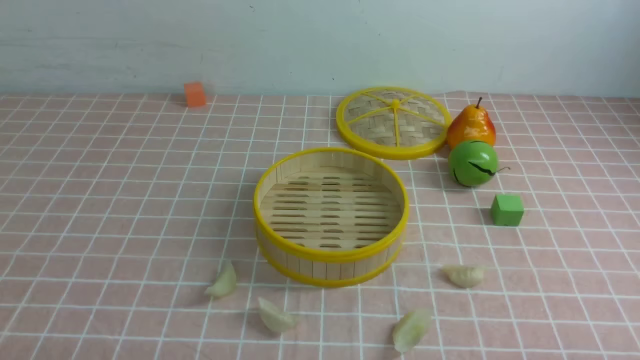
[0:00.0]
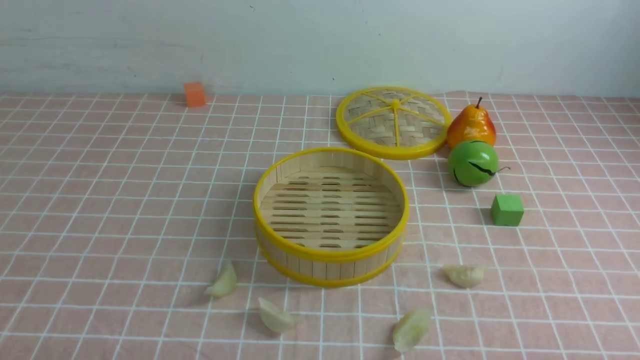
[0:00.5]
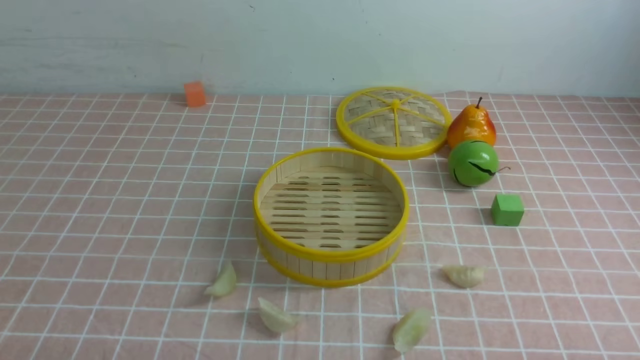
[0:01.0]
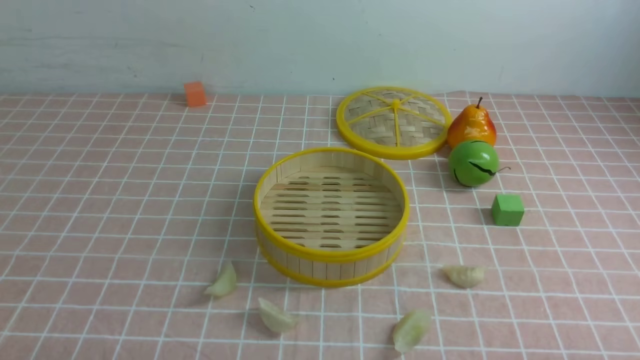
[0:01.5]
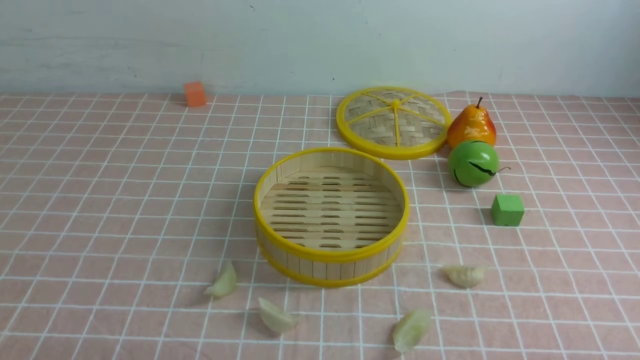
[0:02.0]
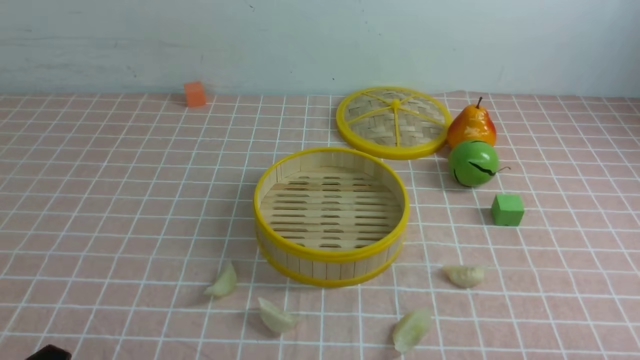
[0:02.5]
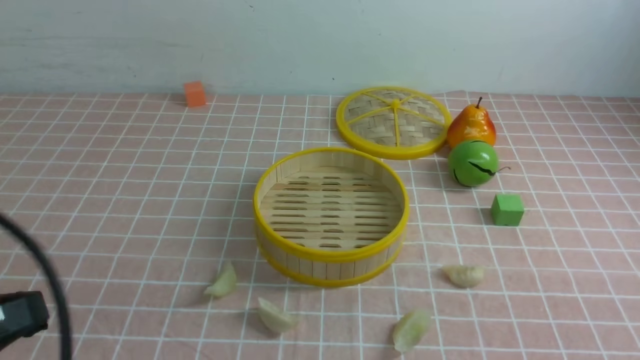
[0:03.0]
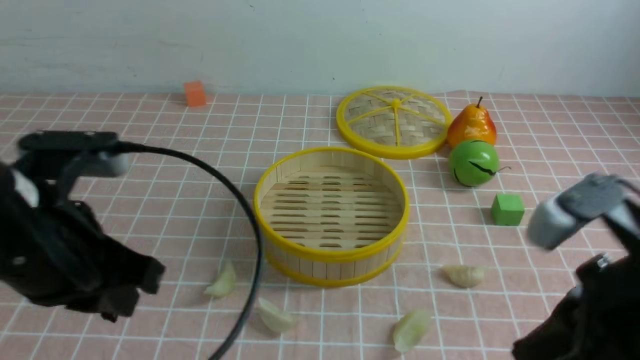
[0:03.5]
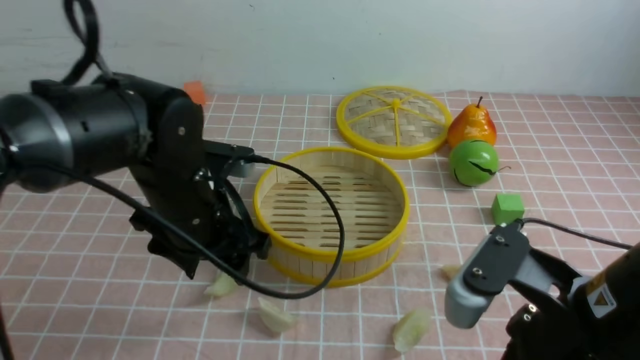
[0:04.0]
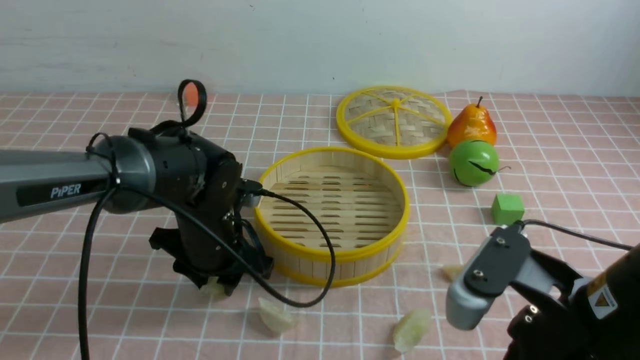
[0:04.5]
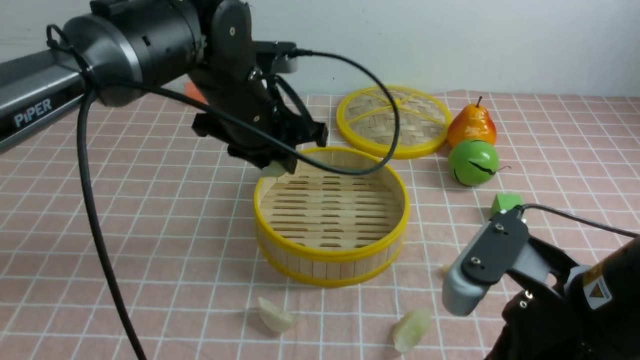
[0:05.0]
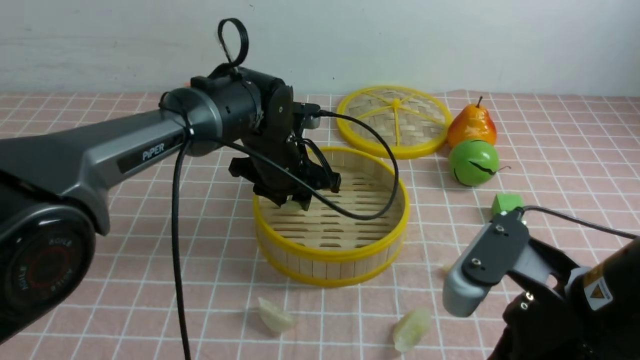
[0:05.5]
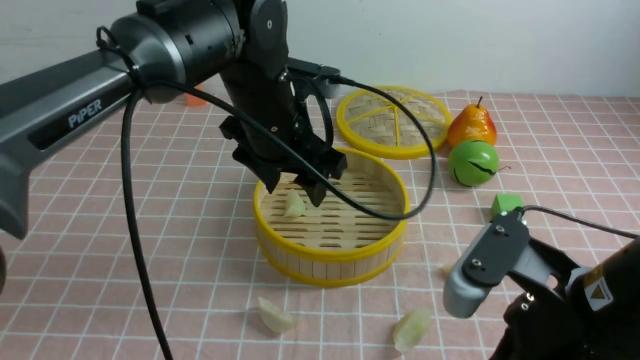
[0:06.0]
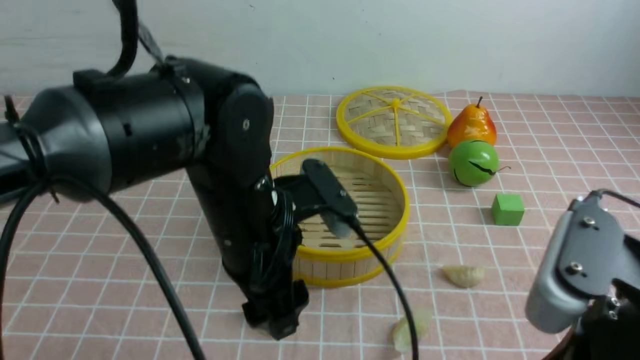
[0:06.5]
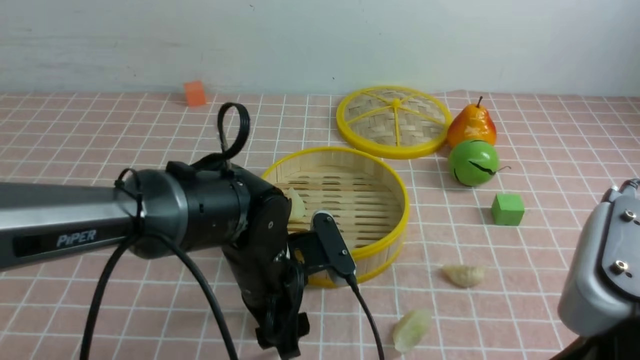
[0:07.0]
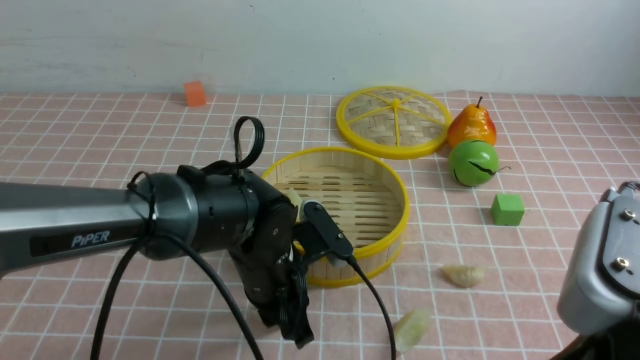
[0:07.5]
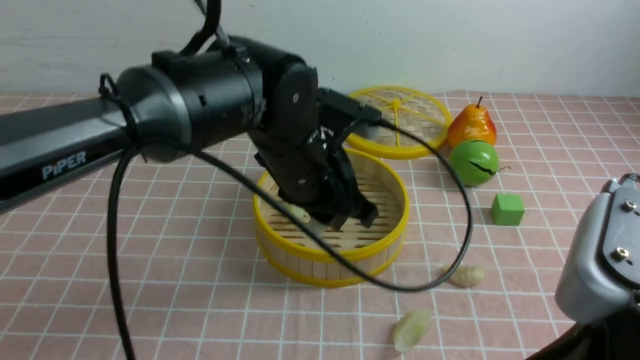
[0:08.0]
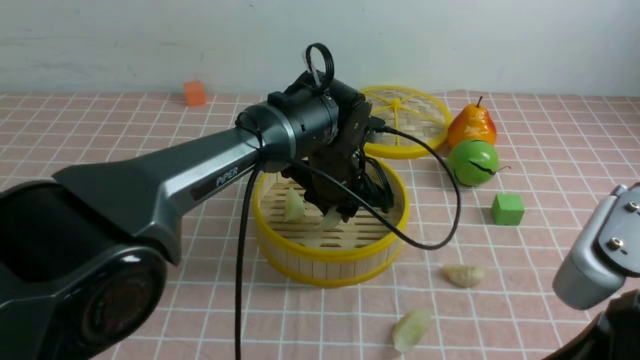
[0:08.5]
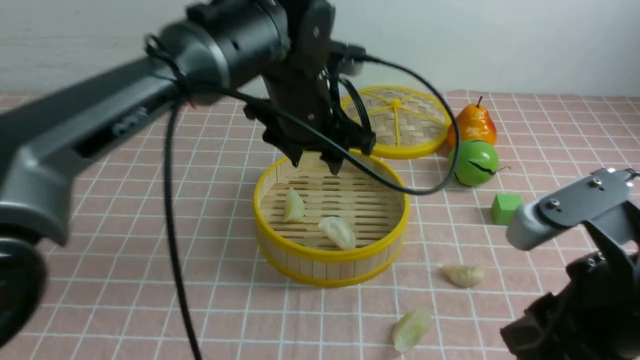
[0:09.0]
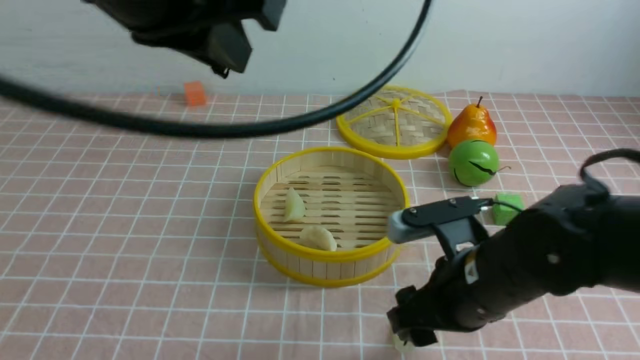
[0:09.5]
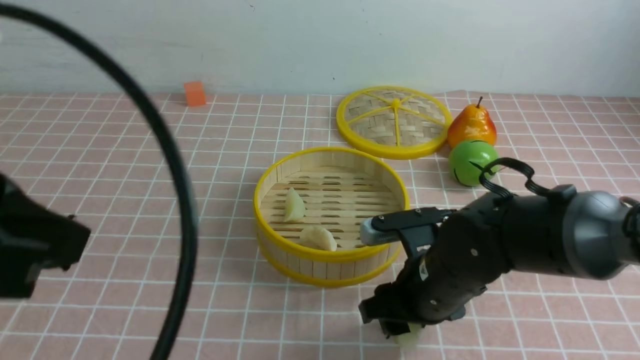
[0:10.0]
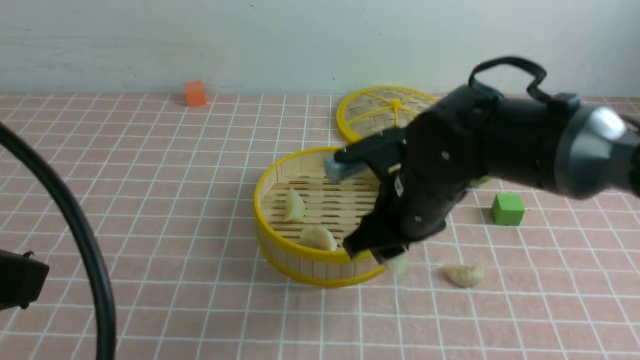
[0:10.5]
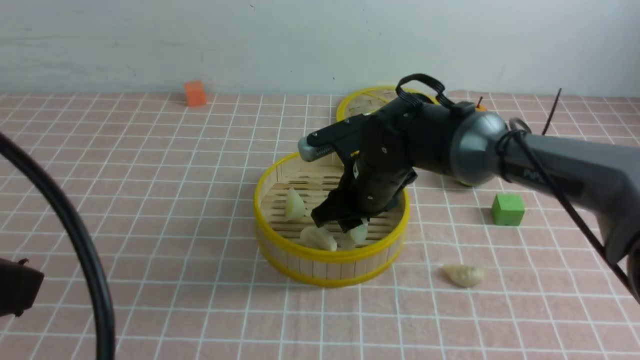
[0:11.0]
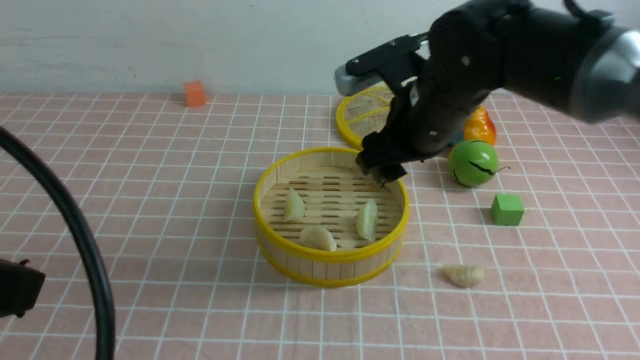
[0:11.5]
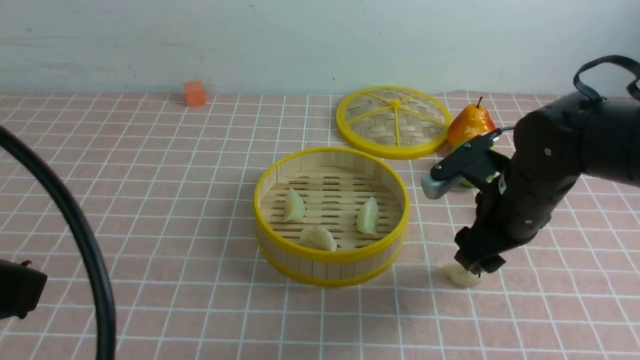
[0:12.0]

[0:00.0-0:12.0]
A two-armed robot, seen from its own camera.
Task of the whole recording: put the dumplings into the steamer on the table with the pink tablecloth.
Step, 0:00.0 to 0:04.5: use the left arm to grab a dumpling.
Step, 0:05.0 to 0:05.5: use the left arm to put the dumpling into the steamer.
Step, 0:06.0 to 0:07.5: use the left arm to grab a dumpling.
Step, 0:08.0 to 0:08.5: use the left arm to put the dumpling into the steamer.
Step, 0:09.0 to 0:10.0: use the right arm to grab a dumpling.
Step, 0:10.5 to 0:11.0: use the right arm to put the dumpling into the steamer.
0:02.0 to 0:04.0: The right gripper shifts roughly 20 cm to the left, forward and upward, and closes up; the left gripper shifts about 25 cm forward and to the right, and opens.
0:04.0 to 0:06.0: The left gripper travels forward and to the right by about 15 cm, and closes, then opens again.
0:06.0 to 0:08.0: The left gripper heads backward, covering roughly 5 cm, goes downward and returns, about 10 cm each way, and closes up. Meanwhile the right gripper moves upward and backward, some 5 cm.
0:08.0 to 0:10.0: The left gripper travels upward, backward and to the left by approximately 30 cm, and closes. The right gripper travels downward, forward and to the left by some 25 cm, and opens.
0:10.0 to 0:12.0: The left gripper ends up approximately 5 cm from where it was, while the right gripper goes some 10 cm upward, to the right and forward.

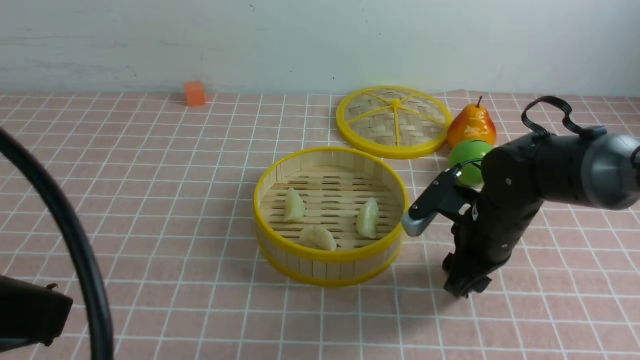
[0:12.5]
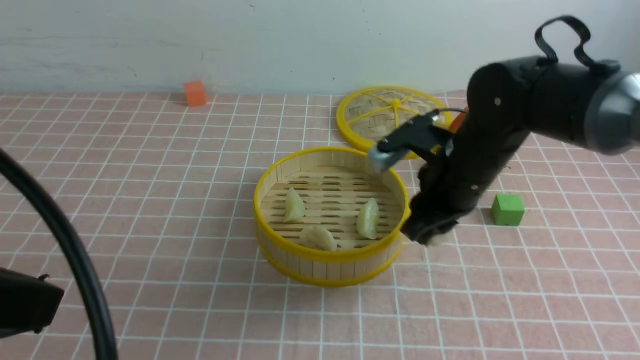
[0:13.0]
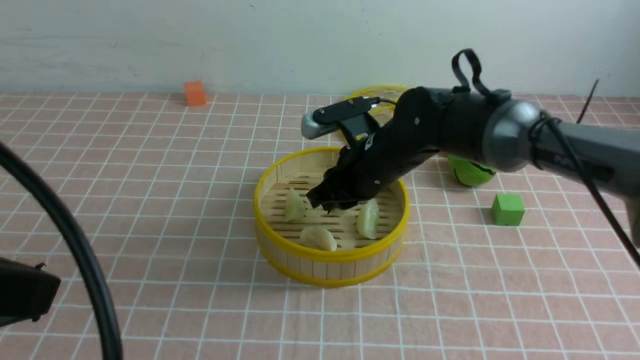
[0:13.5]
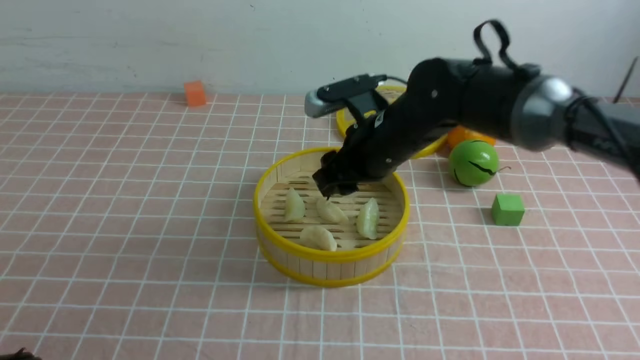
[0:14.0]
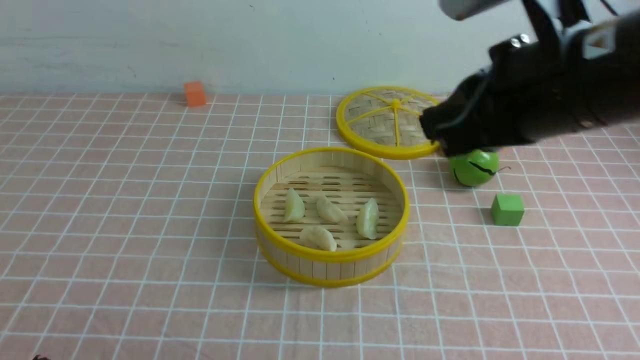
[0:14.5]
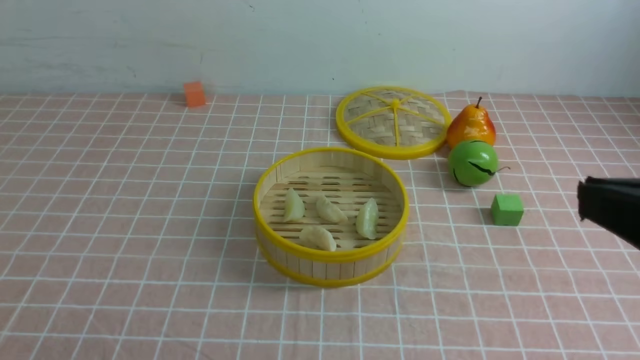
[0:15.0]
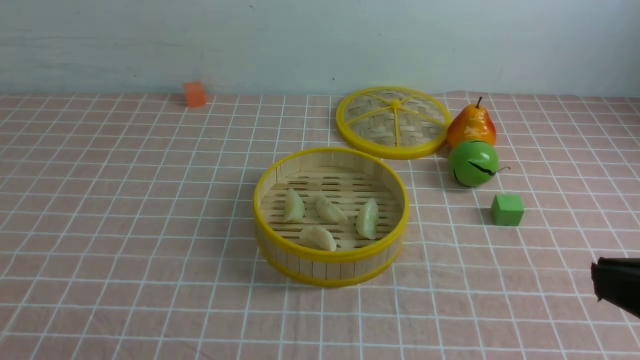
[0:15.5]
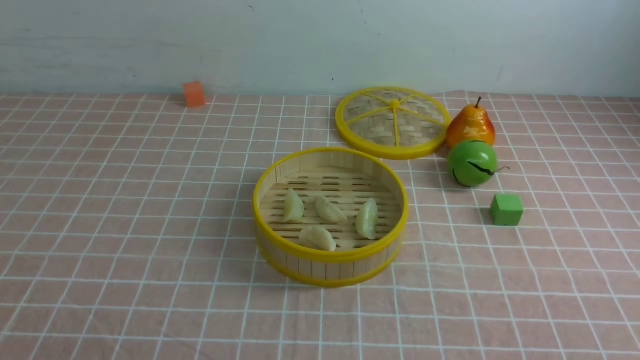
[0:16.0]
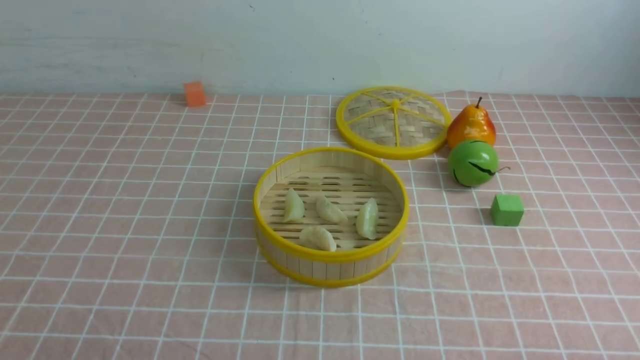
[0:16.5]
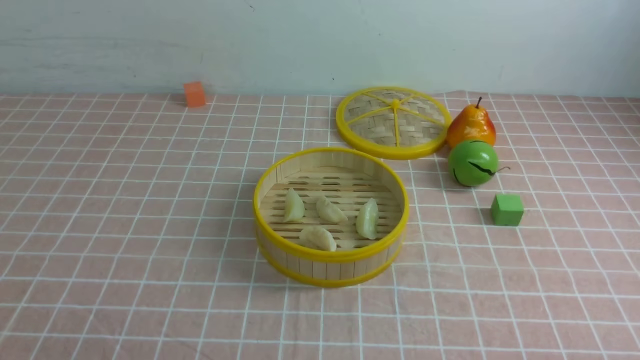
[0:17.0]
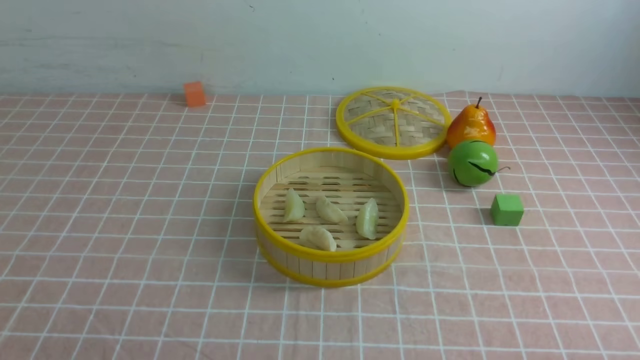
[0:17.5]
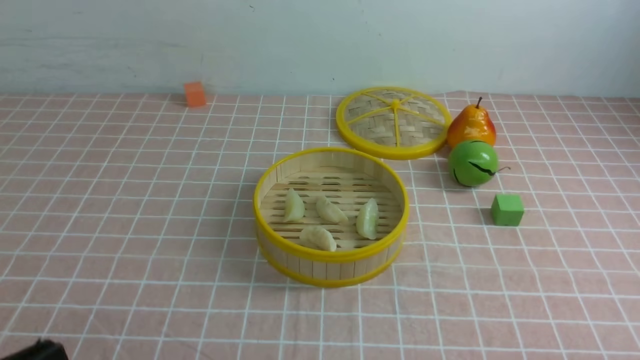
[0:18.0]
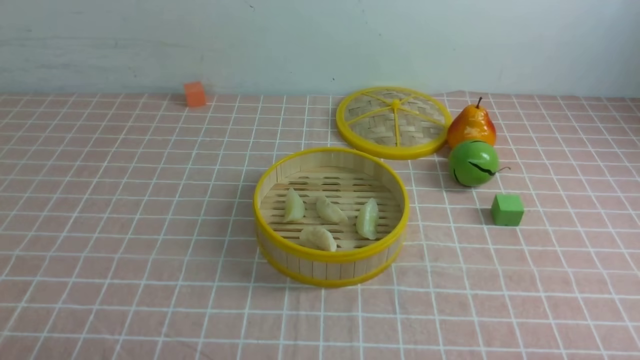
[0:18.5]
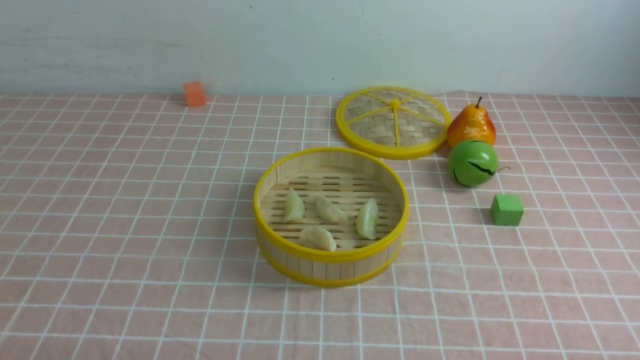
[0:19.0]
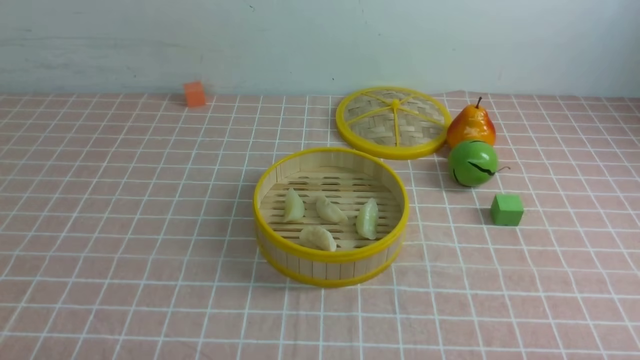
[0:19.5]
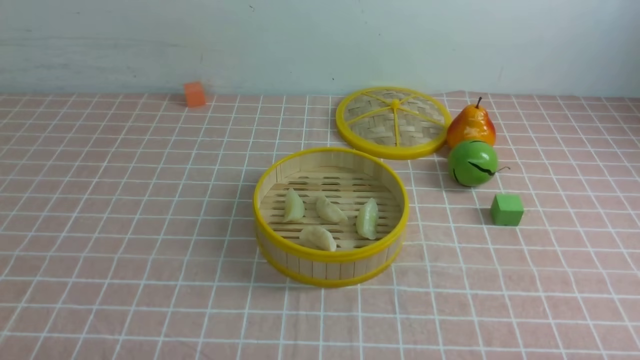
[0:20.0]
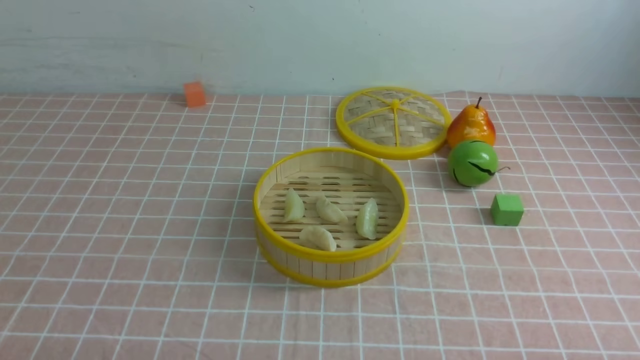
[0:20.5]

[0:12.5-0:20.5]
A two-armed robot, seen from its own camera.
Task of the whole recording: put the dumplings into the steamer on the table with the pink tablecloth.
Step, 0:13.0 to 0:13.5: use the right arm to put the dumpling into the steamer.
0:12.5 to 0:14.5: The left gripper heads downward, covering some 15 cm. The right gripper heads upward, covering some 20 cm, and closes.
0:14.5 to 0:16.5: The right gripper is displaced backward, downward and to the right by roughly 35 cm.
